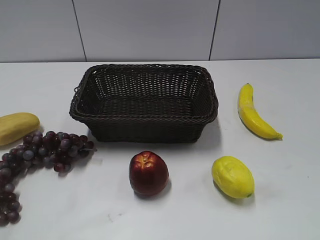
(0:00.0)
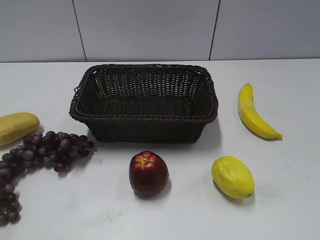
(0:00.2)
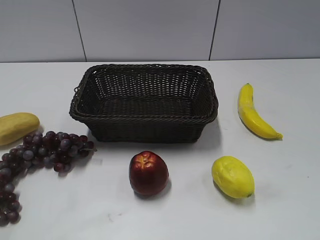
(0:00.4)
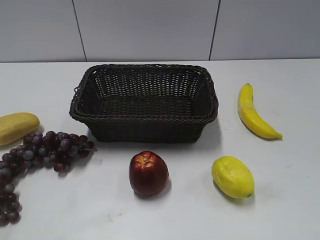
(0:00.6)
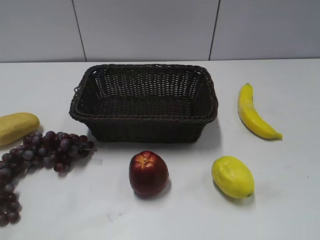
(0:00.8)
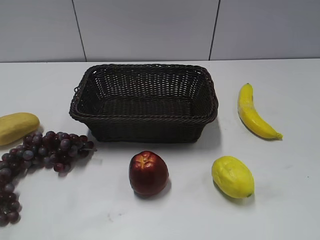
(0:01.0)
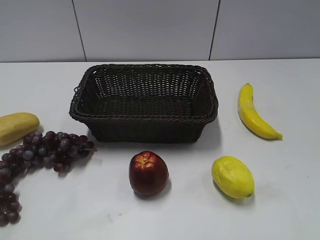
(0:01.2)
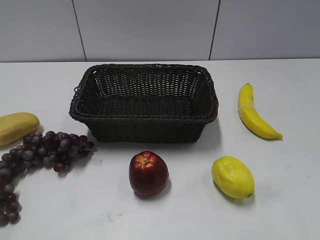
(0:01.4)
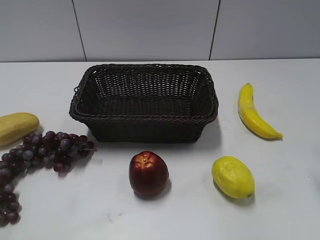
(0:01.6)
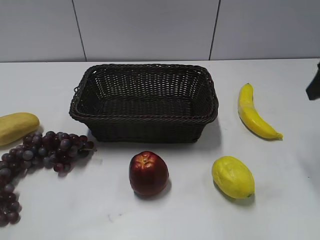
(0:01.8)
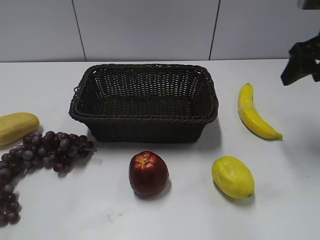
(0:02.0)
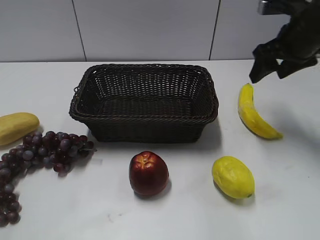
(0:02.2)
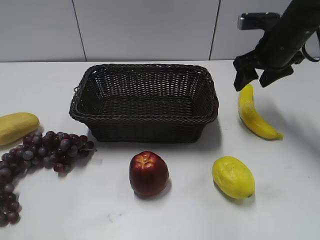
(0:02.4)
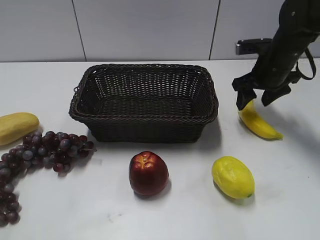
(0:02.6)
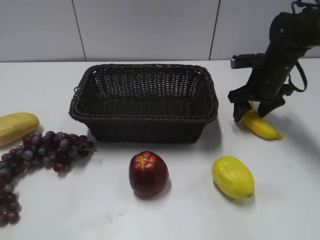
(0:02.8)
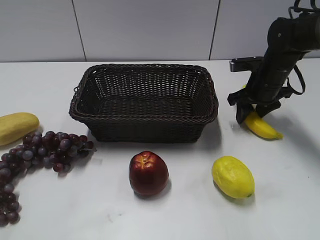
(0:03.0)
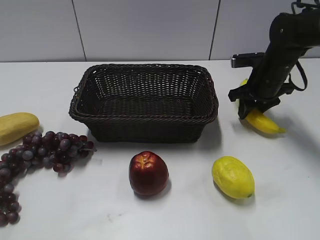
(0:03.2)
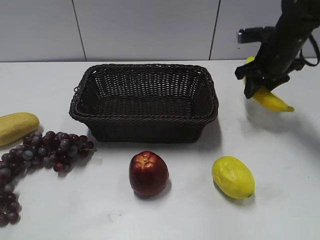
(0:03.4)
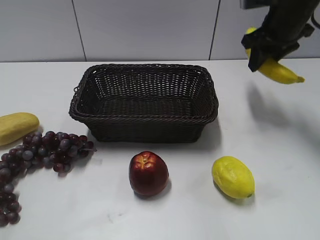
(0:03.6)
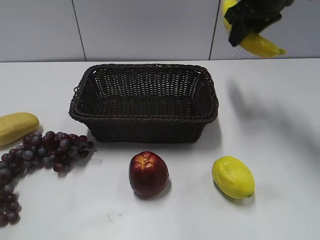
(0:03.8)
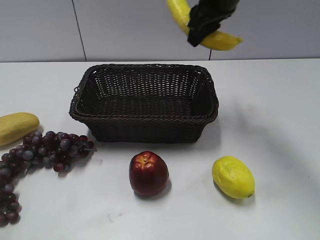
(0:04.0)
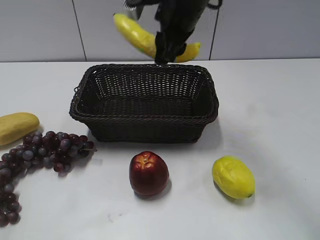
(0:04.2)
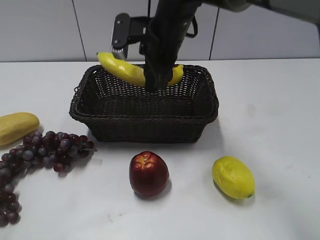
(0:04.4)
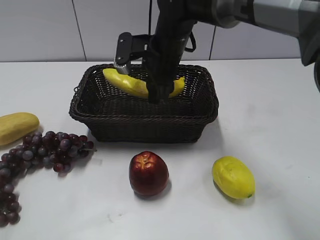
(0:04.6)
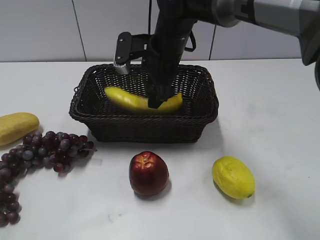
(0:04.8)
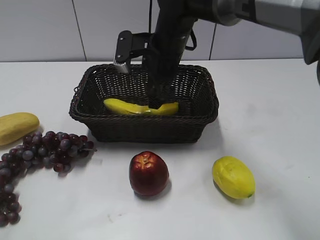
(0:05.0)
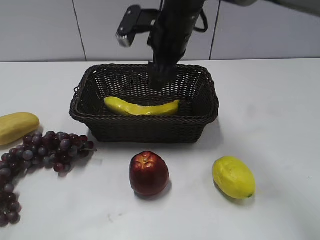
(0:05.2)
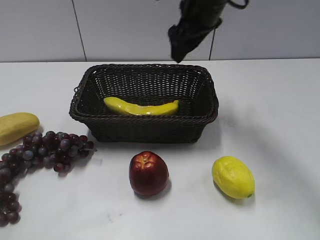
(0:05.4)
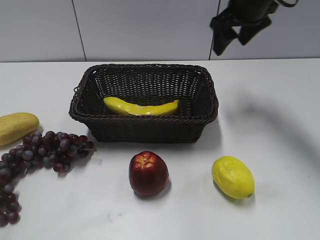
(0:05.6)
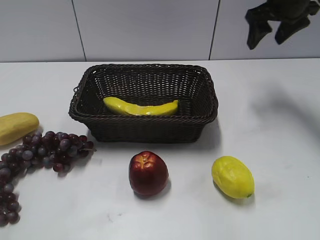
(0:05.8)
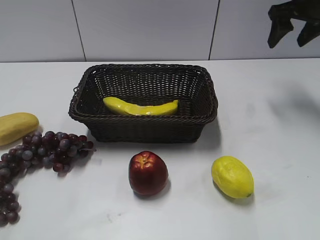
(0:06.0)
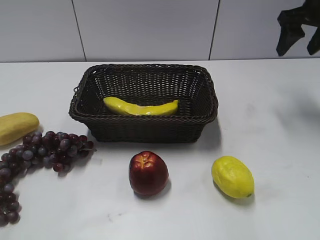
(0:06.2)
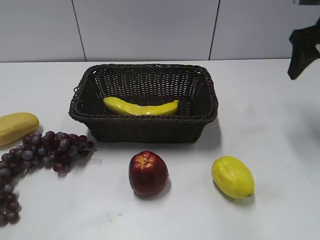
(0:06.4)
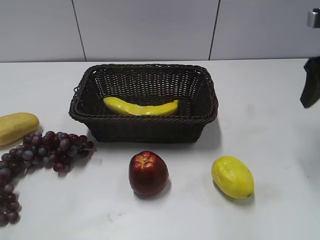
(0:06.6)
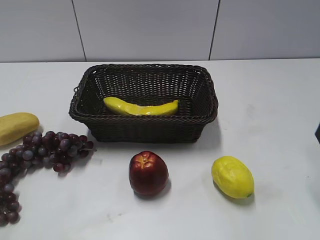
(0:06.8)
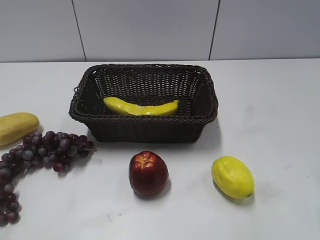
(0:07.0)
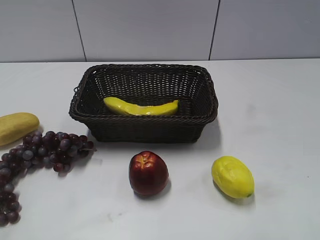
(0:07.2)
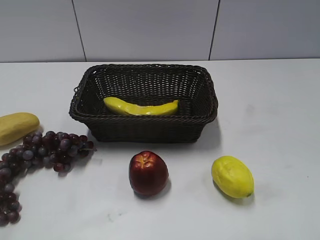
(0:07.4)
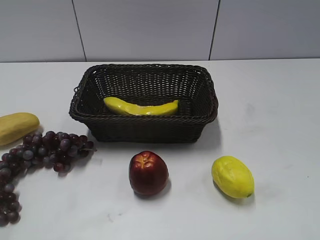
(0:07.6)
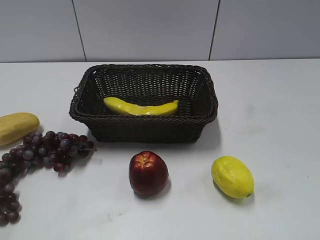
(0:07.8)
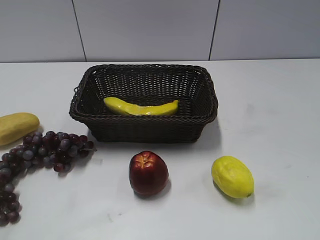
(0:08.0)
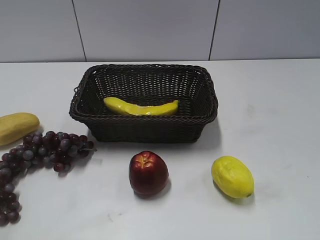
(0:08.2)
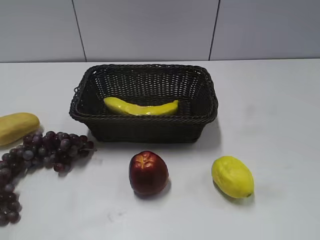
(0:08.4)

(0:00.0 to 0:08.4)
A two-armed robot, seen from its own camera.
Step, 0:01.8 - 0:03.0: Grasp the banana with right gripper.
Step, 0:03.2 - 0:05.0: Place the banana in the basket with right gripper.
0:01.4 - 0:02.8: The right gripper moves forward and downward, roughly 30 cm.
0:02.8 - 0:04.2: The right gripper heads to the left and upward, covering about 25 cm, and closes its fingers.
0:04.2 - 0:05.6: The right gripper shifts about 15 cm to the right, and opens its fingers.
0:05.6 - 0:07.0: The right gripper travels backward and to the right by approximately 30 cm.

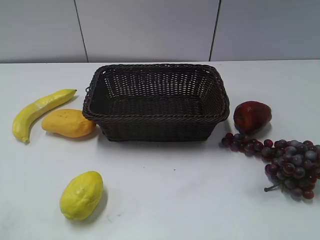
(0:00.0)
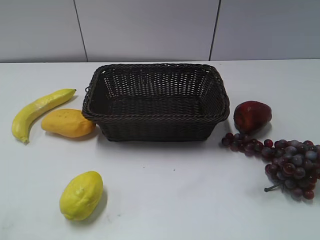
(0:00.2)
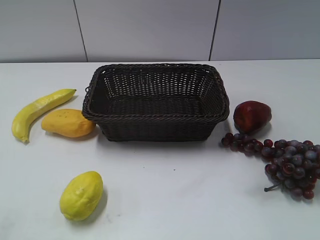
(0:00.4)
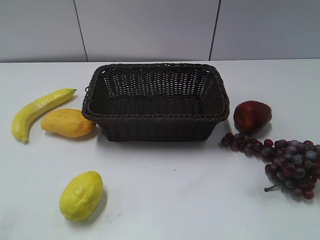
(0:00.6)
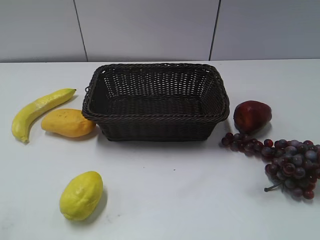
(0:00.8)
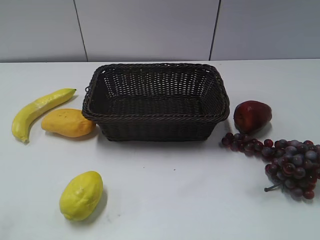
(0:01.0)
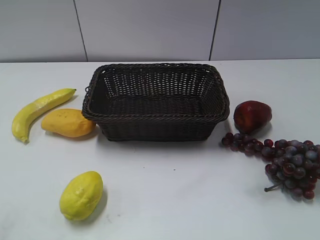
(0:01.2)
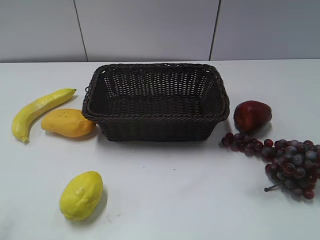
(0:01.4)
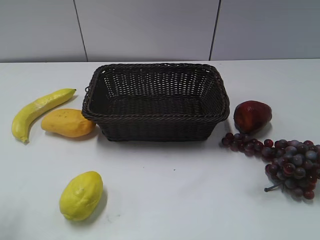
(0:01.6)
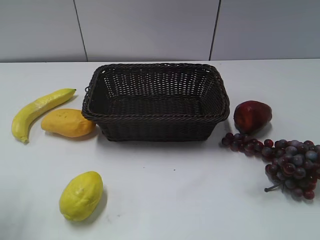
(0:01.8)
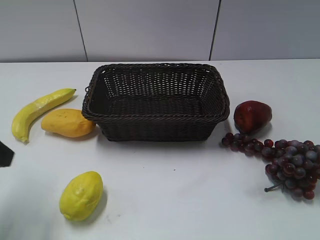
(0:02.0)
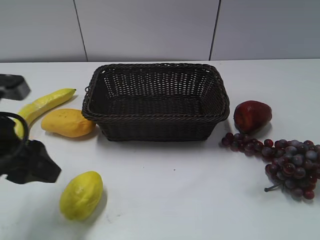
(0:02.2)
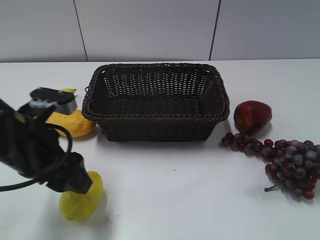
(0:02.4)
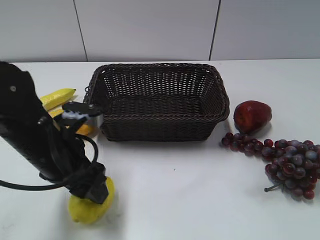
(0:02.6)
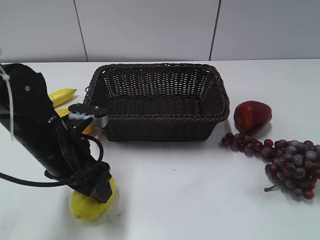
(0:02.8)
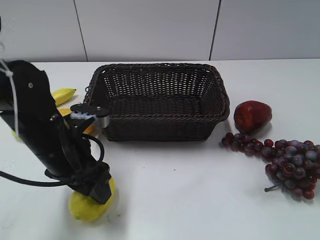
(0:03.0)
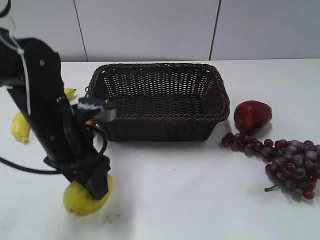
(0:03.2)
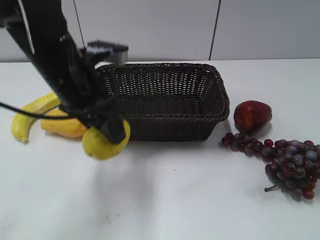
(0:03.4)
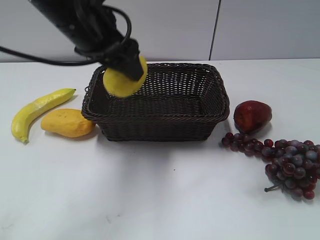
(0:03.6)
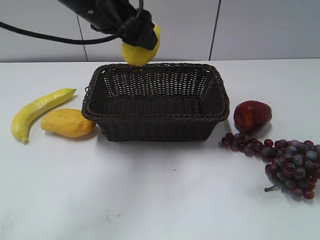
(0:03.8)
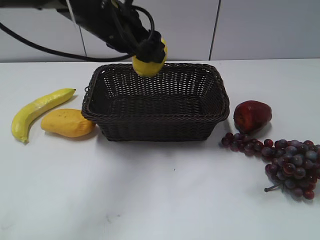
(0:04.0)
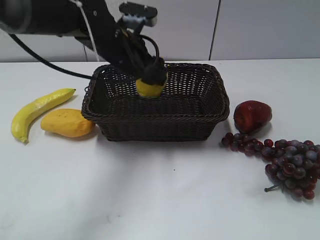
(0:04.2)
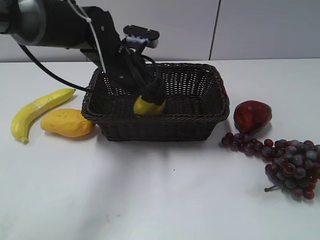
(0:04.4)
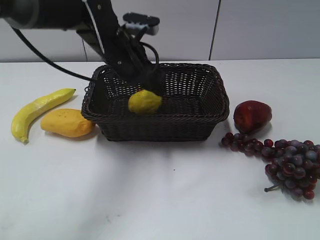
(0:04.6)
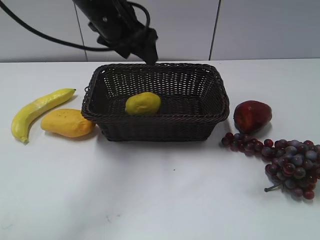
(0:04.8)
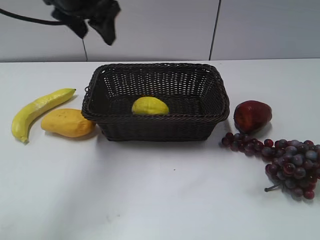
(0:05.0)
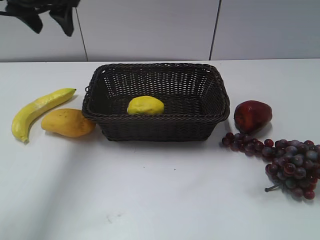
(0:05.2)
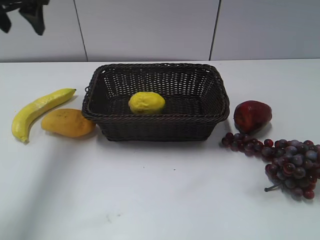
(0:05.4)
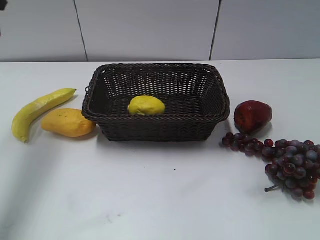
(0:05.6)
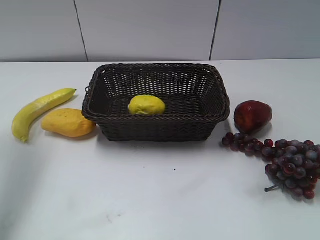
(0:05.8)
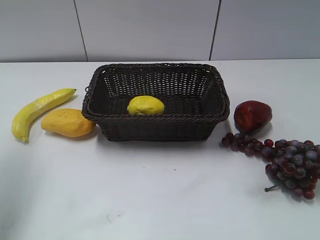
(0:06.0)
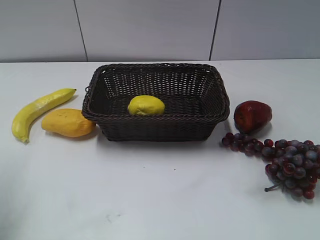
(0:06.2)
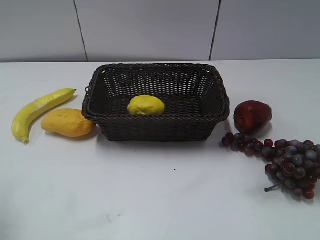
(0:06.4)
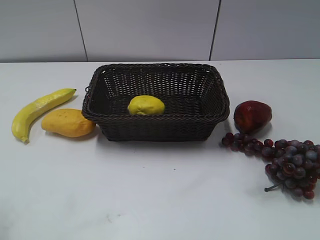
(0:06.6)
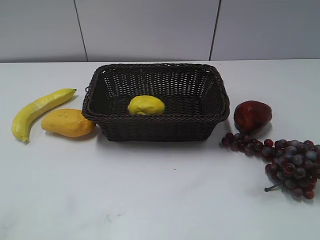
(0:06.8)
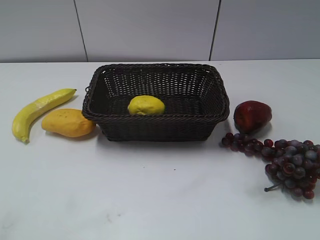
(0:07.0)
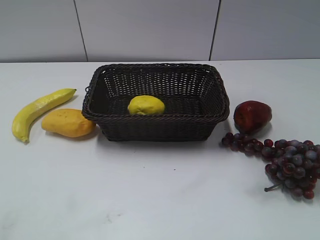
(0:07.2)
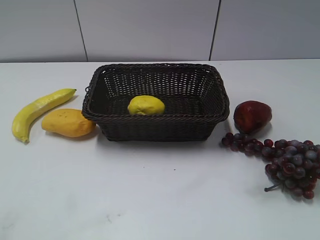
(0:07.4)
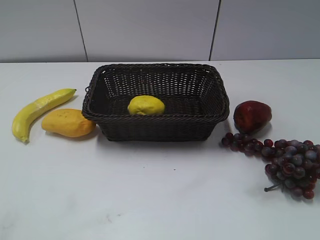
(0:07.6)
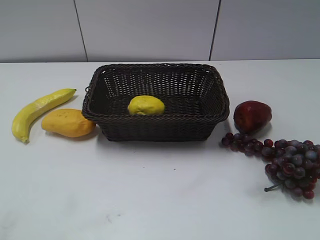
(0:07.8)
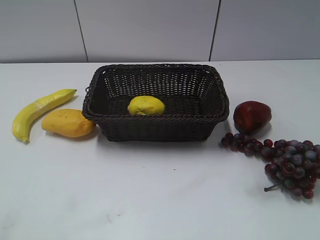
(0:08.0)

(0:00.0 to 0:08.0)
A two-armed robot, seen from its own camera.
Step, 0:02.0 - 0:02.8: Grasp the lemon with left gripper.
Step, 0:03.0 - 0:04.4: Place the lemon in the basket with left gripper.
0:01.6 - 0:03.2: The left gripper heads to the right, forward and downward, covering about 25 cm.
0:03.2 - 0:04.8: The left gripper shifts approximately 20 cm forward and upward, and opens.
0:04.8 - 0:06.4: The left gripper shifts roughly 30 cm to the left and backward.
0:06.4 - 0:08.0: The left gripper shifts roughly 20 cm backward.
